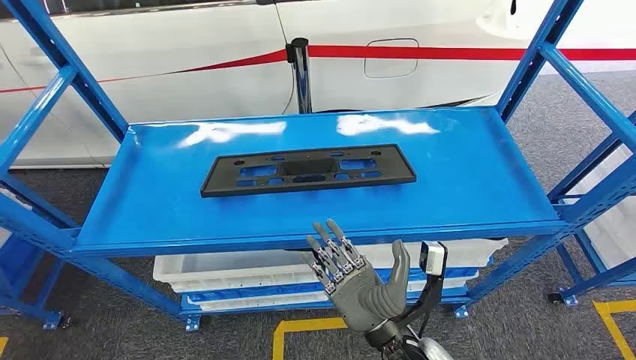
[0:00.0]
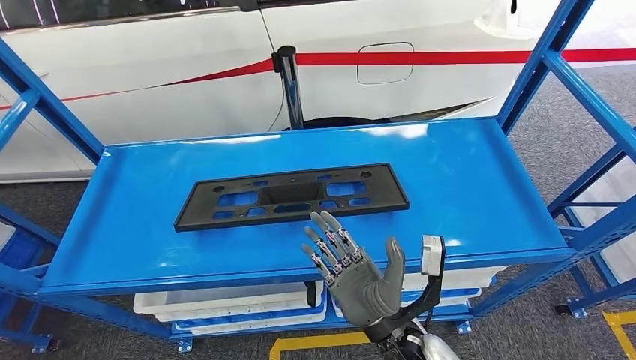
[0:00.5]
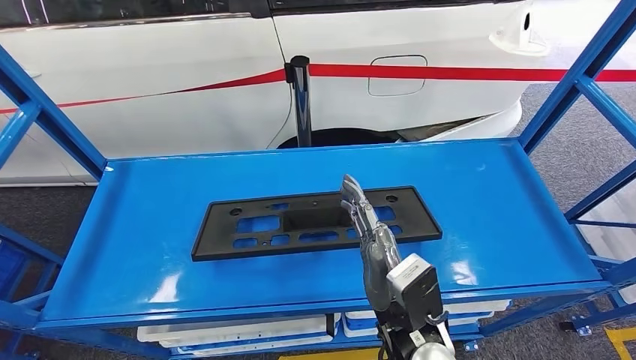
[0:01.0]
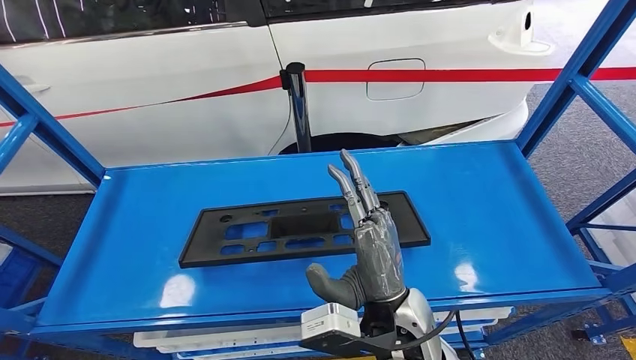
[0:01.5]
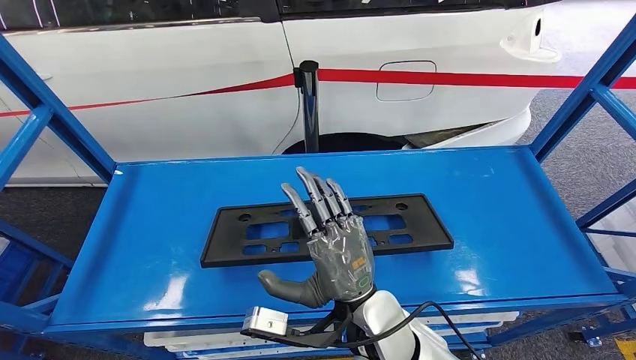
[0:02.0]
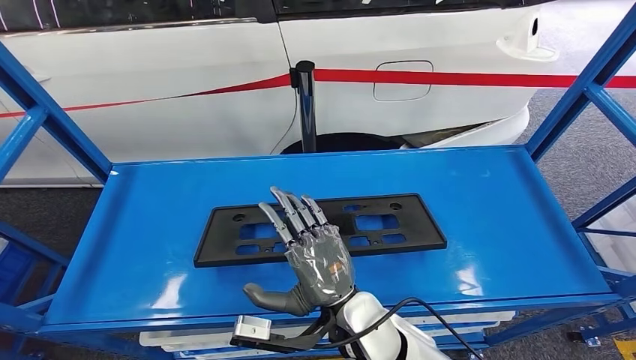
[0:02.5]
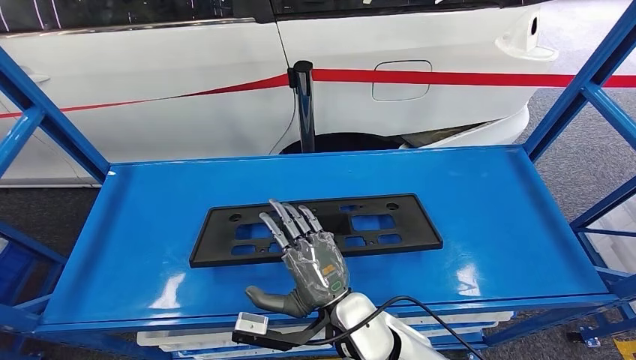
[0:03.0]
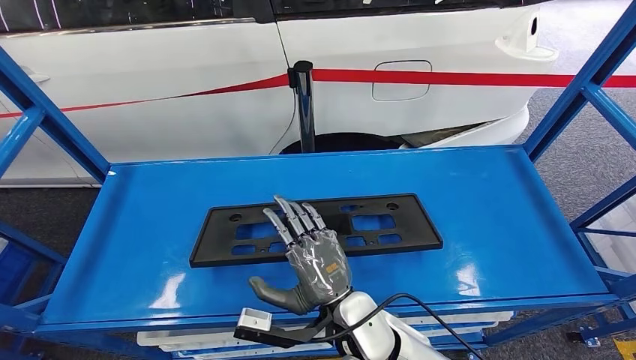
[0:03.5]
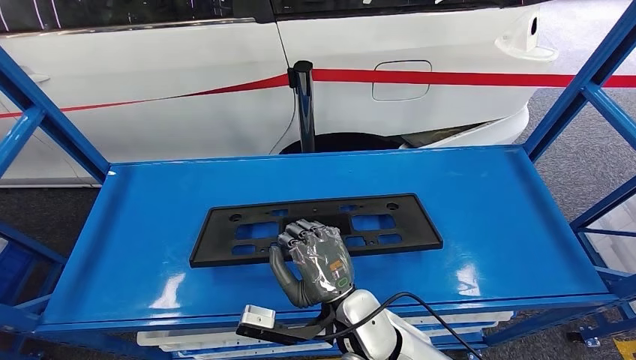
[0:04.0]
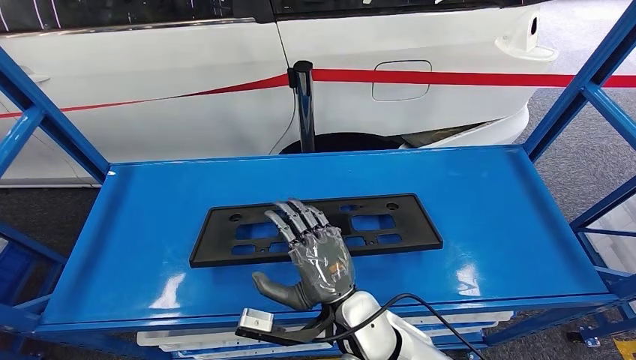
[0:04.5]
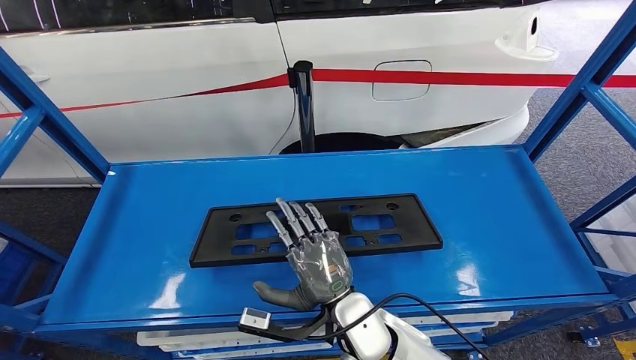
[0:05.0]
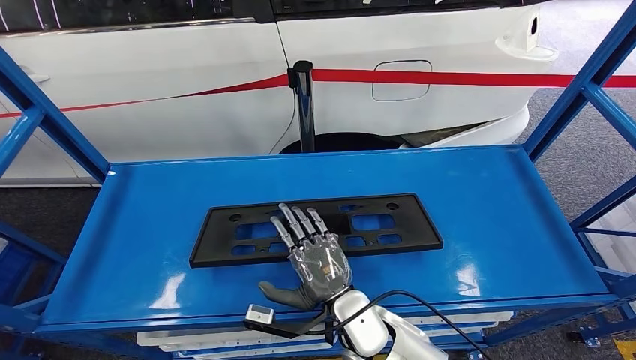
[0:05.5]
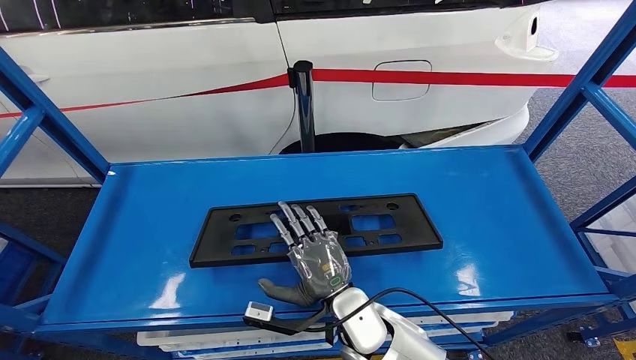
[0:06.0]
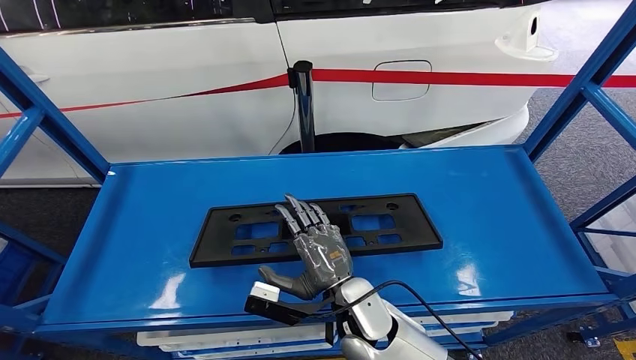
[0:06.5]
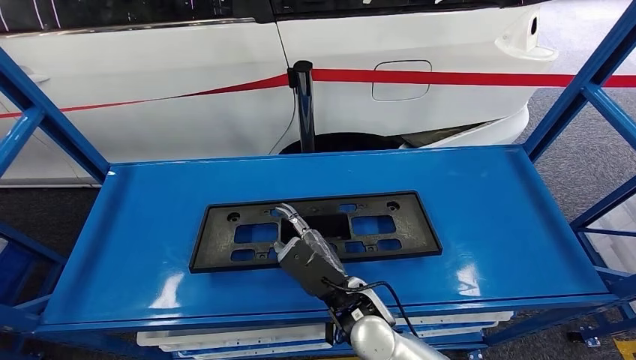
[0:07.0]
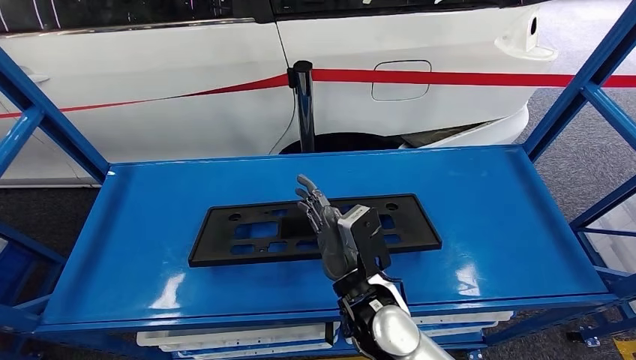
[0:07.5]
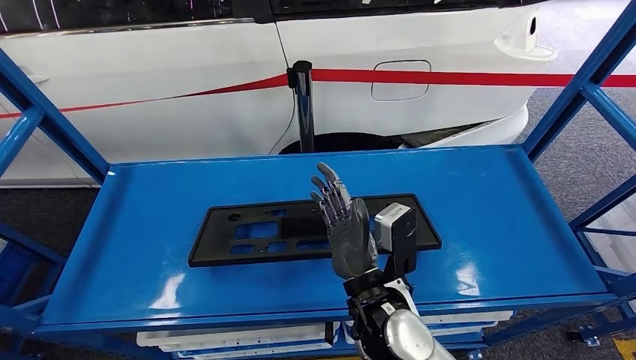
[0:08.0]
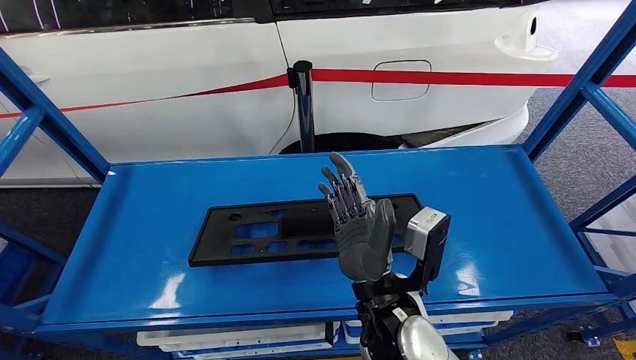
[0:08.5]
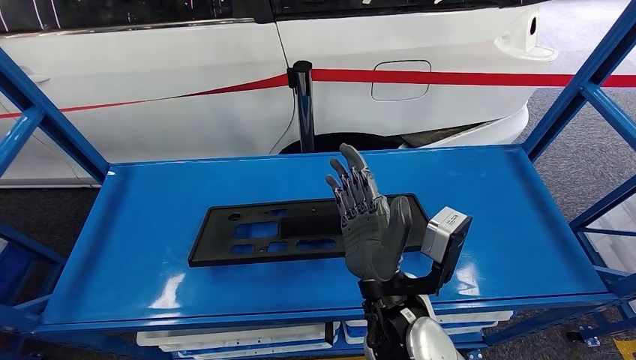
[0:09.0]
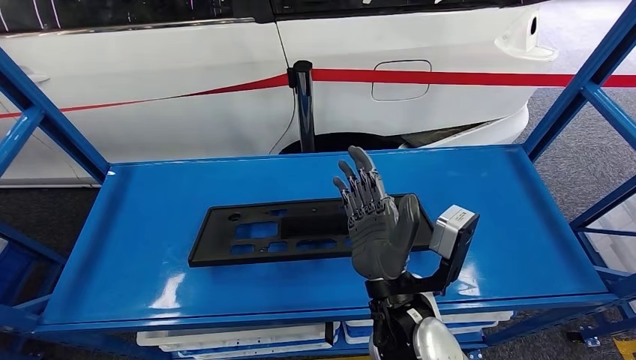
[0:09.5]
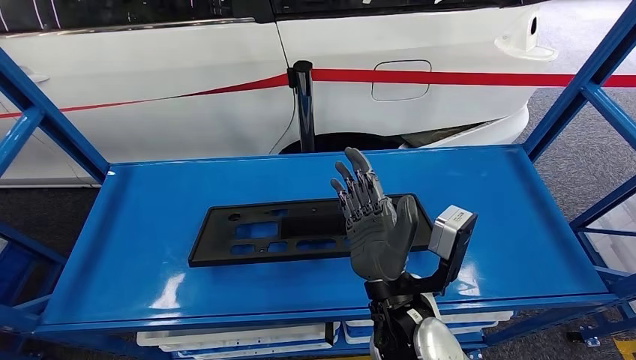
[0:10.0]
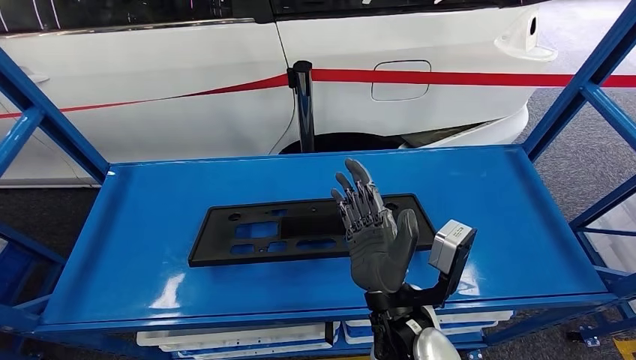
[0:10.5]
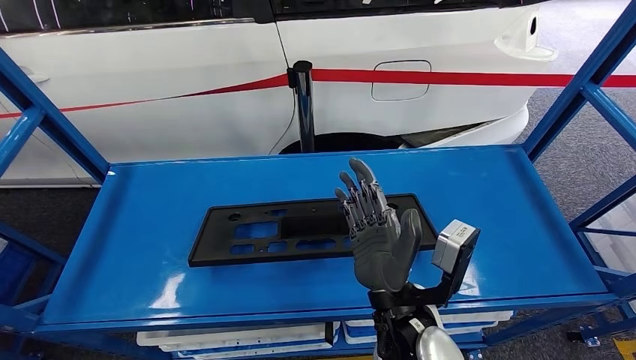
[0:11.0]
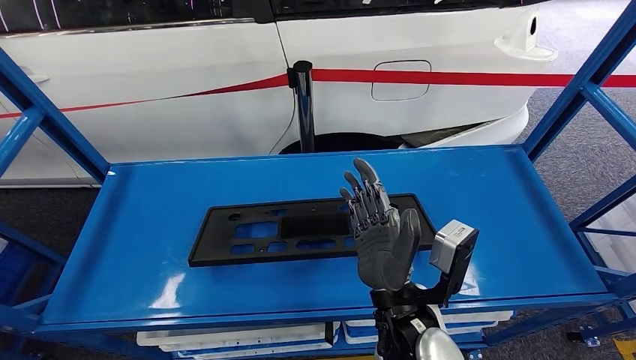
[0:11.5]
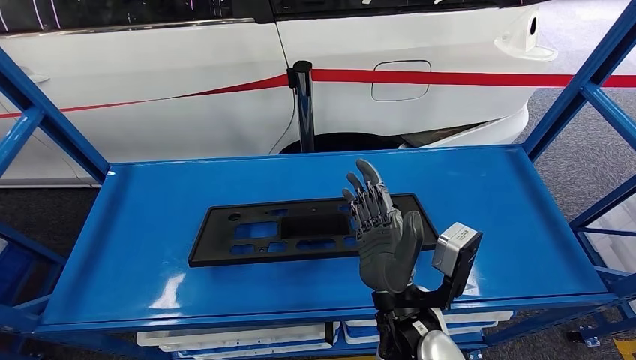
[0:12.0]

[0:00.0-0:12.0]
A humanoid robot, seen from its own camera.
0:02.0 to 0:04.0: There are only small adjustments of the hands.
0:04.0 to 0:06.0: The hands make only small movements.
0:06.0 to 0:08.0: The right hand goes roughly 10 cm upward.
0:08.0 to 0:12.0: The hands stay close to where they were, moving slightly.

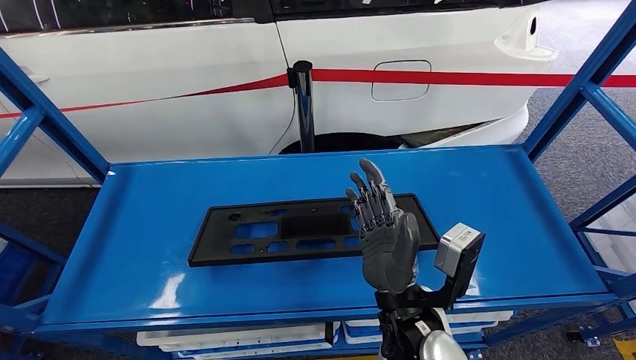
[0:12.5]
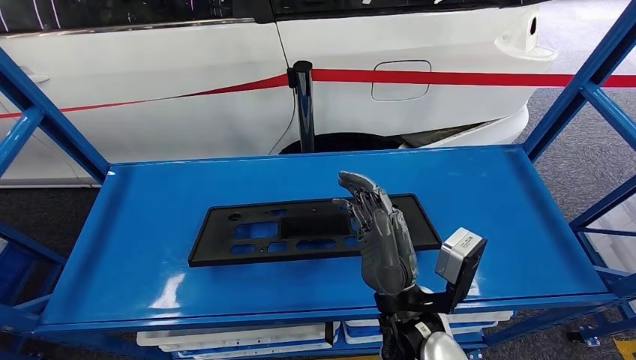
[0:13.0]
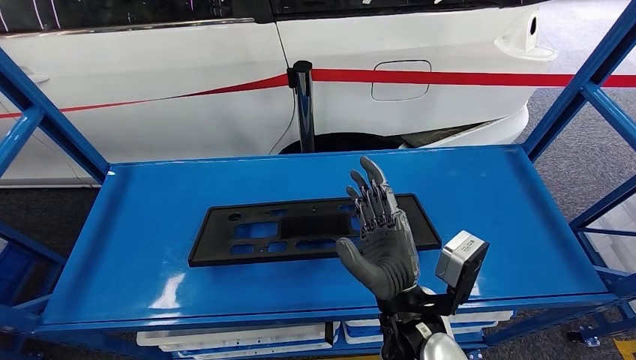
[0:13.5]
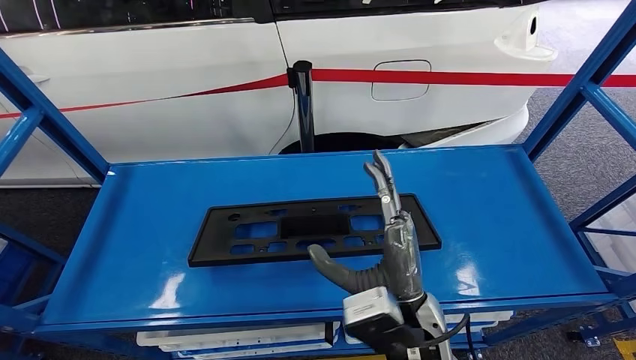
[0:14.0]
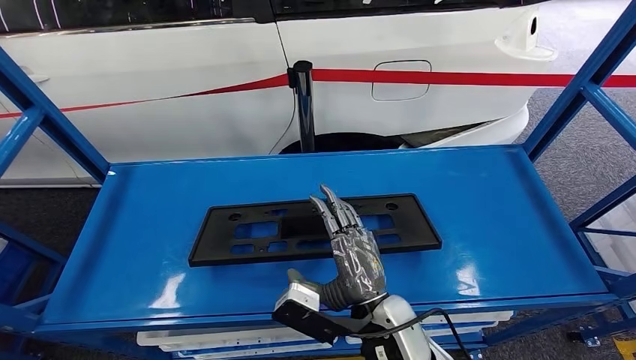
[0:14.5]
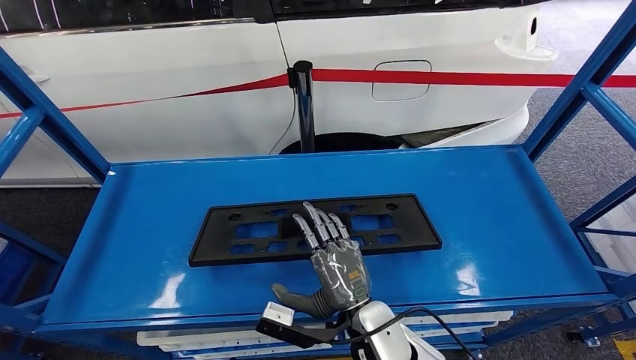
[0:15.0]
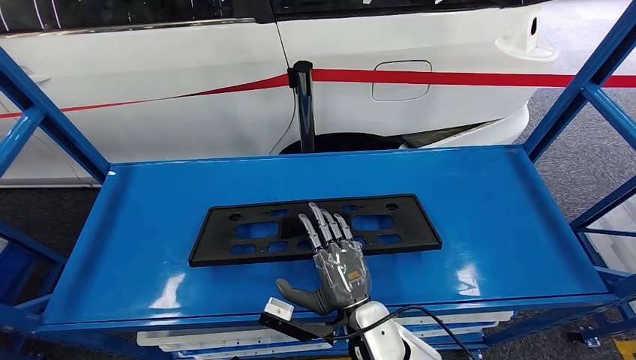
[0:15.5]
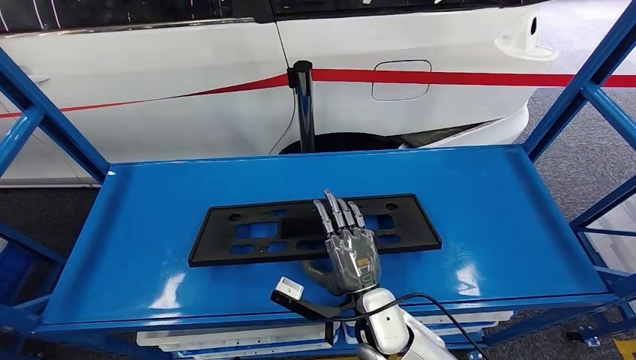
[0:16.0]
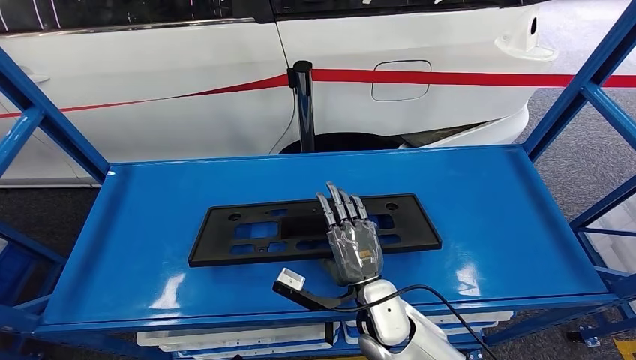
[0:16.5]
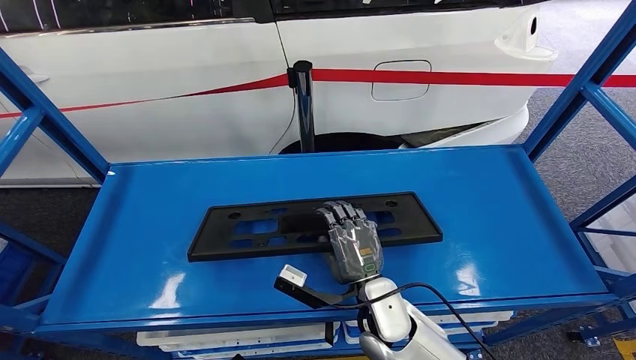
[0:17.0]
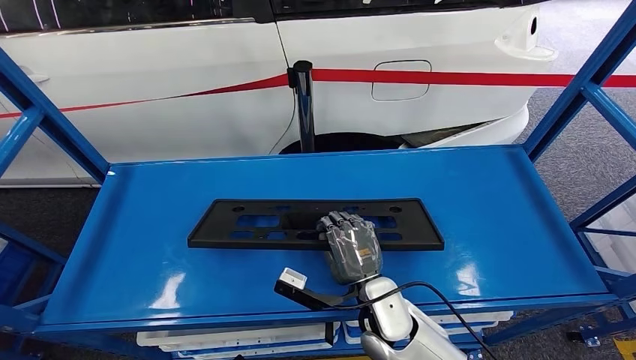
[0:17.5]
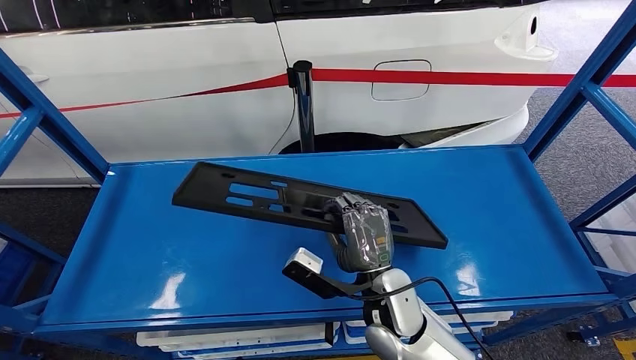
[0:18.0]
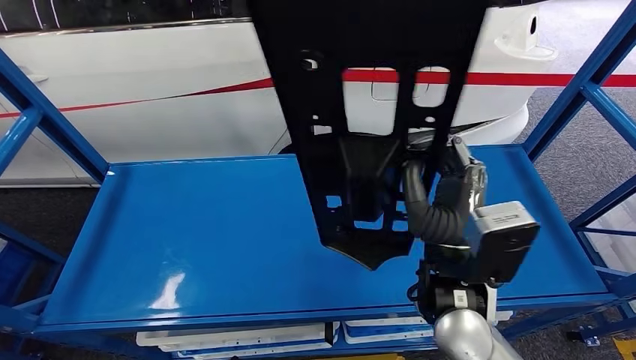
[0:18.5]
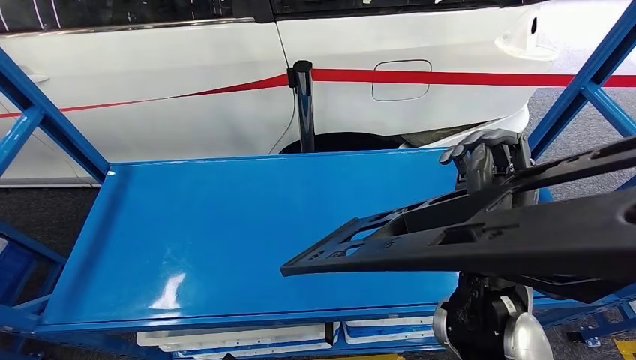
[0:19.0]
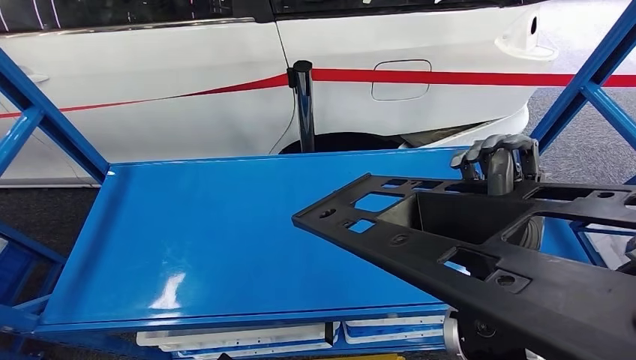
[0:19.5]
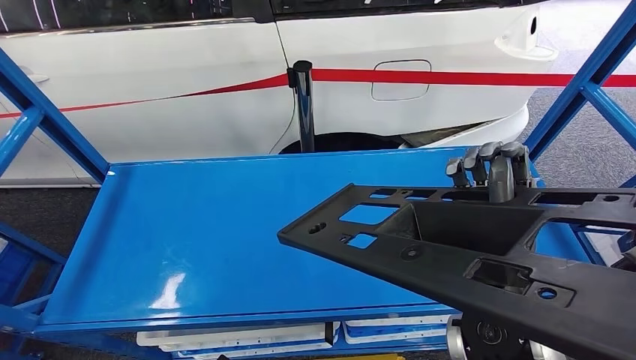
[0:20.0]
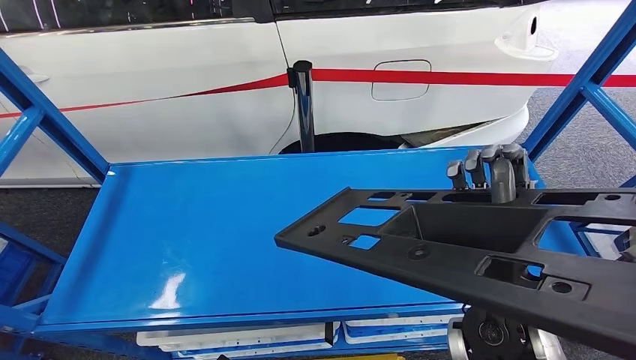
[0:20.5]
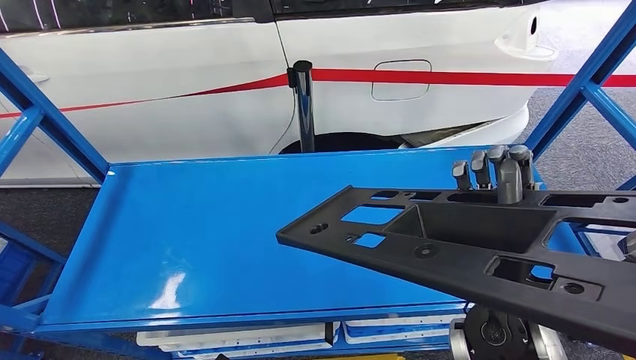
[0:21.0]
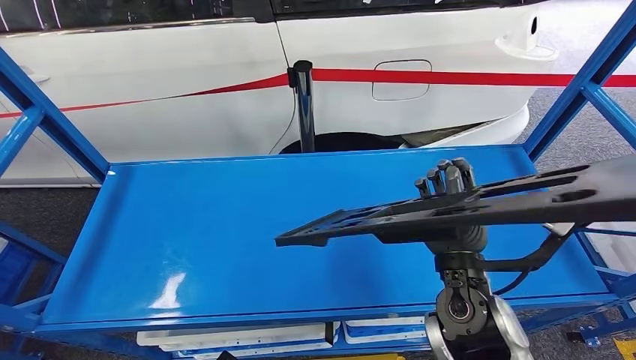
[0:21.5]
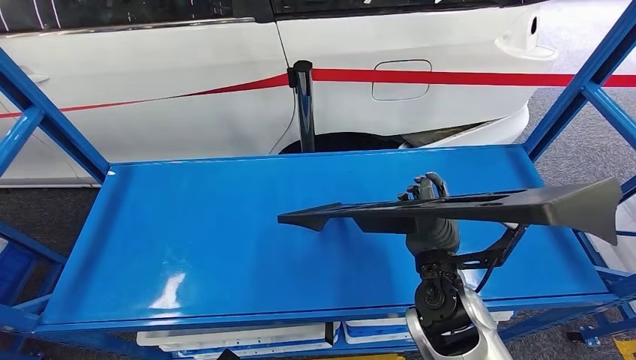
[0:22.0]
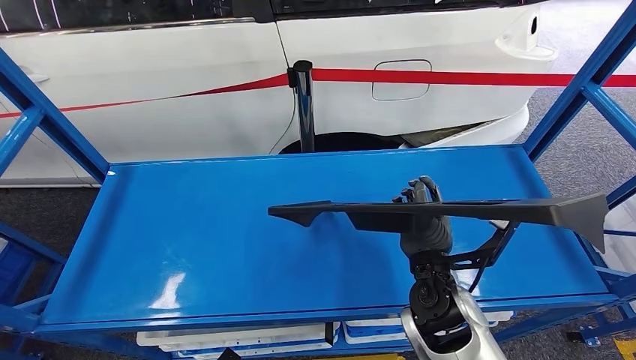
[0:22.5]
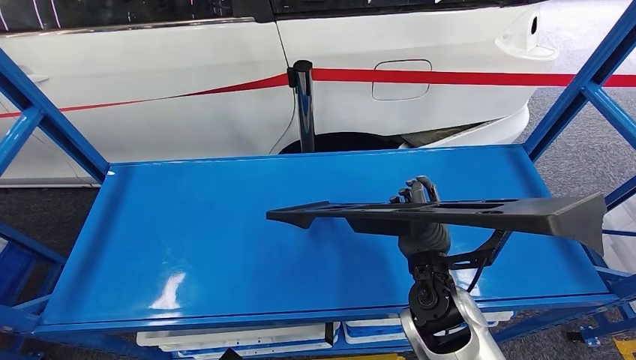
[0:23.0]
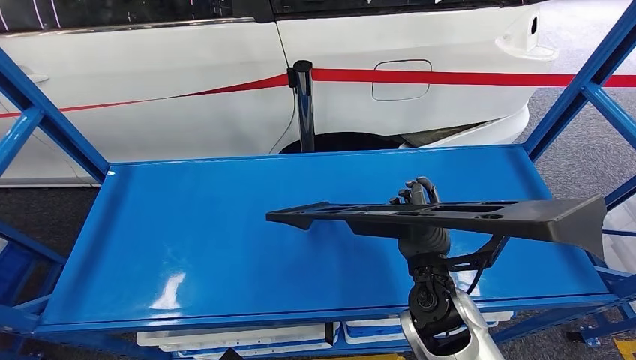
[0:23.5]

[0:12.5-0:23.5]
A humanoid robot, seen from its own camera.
Step, 0:12.5 to 0:19.0: Pick up the large material from the shelf.
0:14.5 to 0:16.0: The right hand shifts roughly 5 cm downward.
0:16.0 to 0:18.0: The hands make only small movements.
0:20.0 to 0:21.5: The right hand shifts by approximately 5 cm.
0:21.5 to 0:23.5: The right hand heads downward, covering approximately 5 cm.
